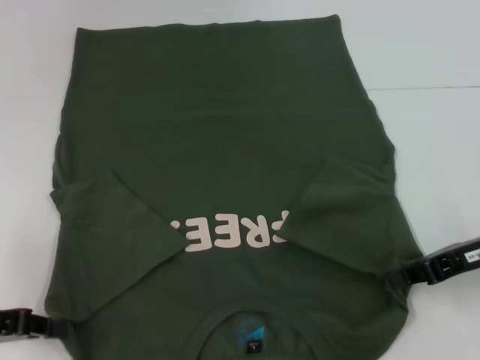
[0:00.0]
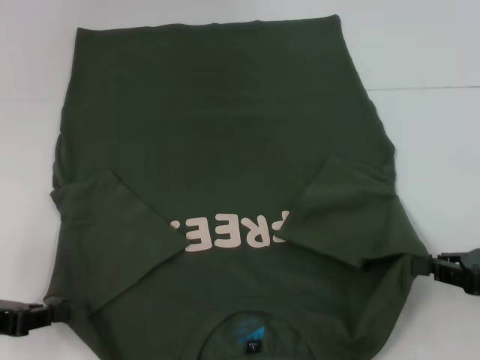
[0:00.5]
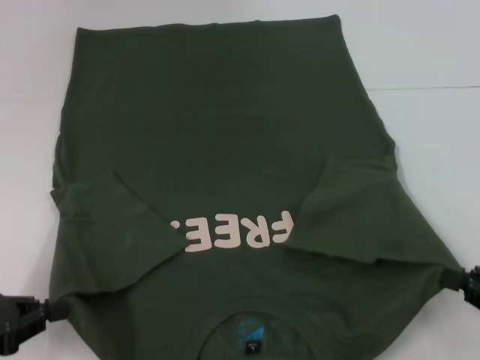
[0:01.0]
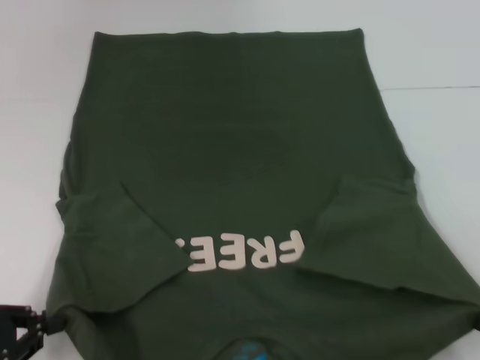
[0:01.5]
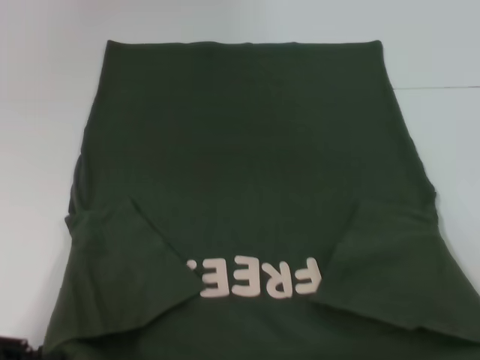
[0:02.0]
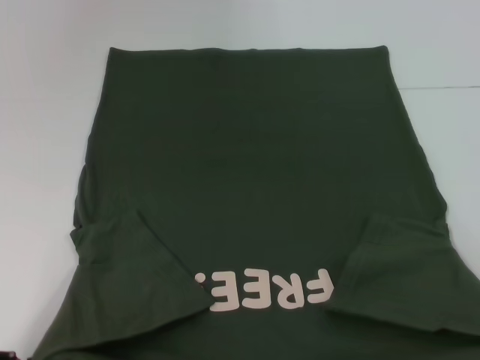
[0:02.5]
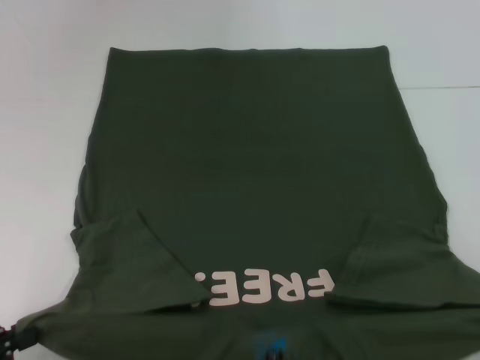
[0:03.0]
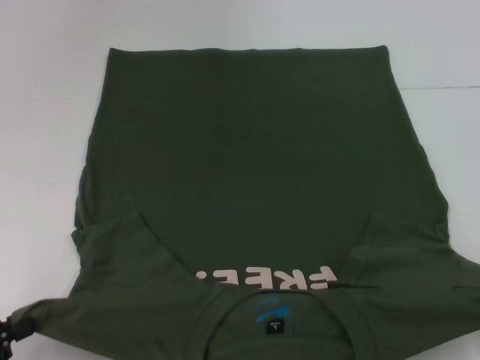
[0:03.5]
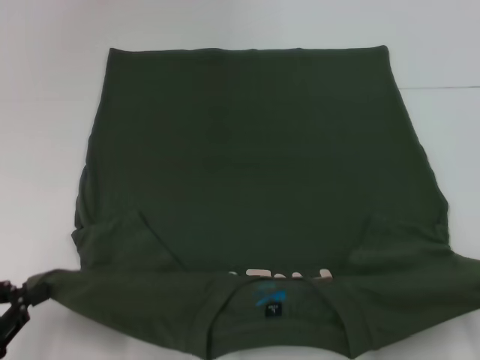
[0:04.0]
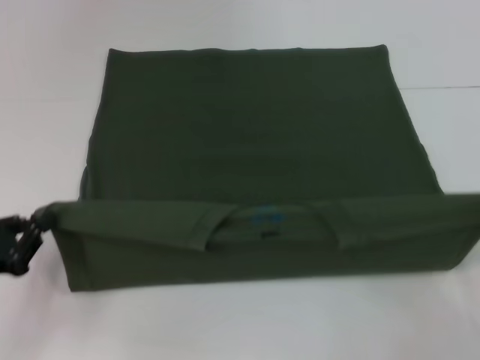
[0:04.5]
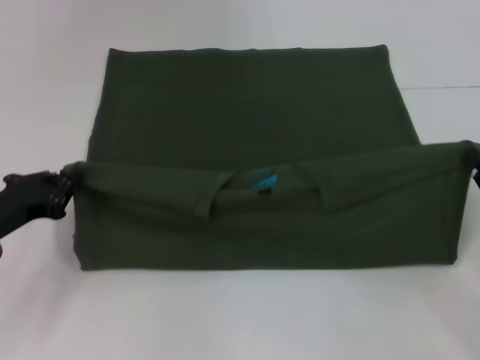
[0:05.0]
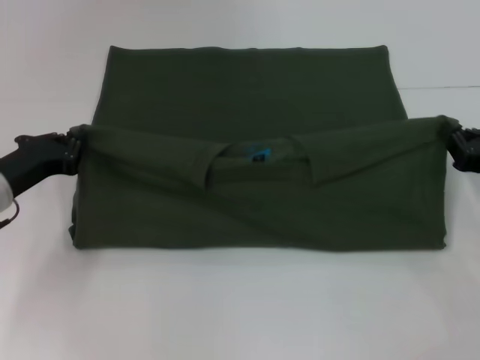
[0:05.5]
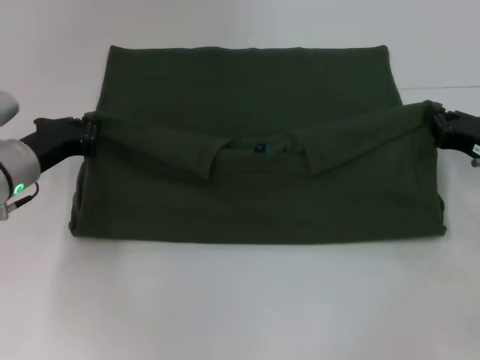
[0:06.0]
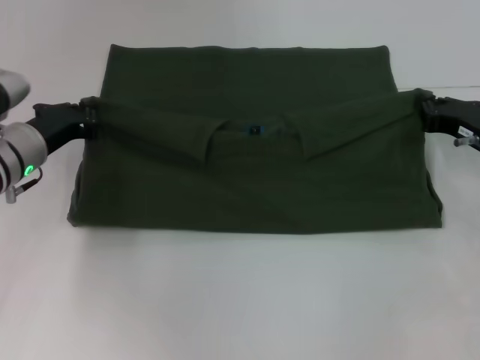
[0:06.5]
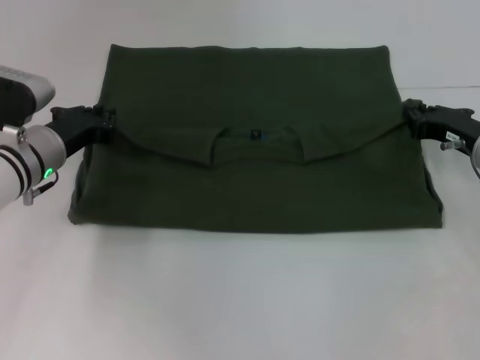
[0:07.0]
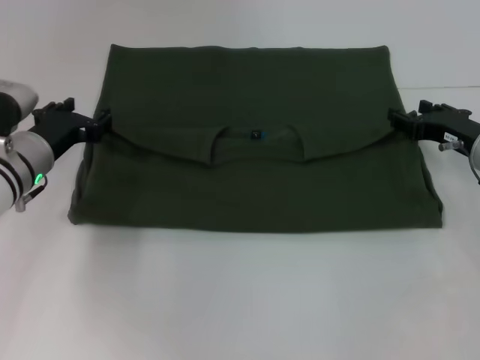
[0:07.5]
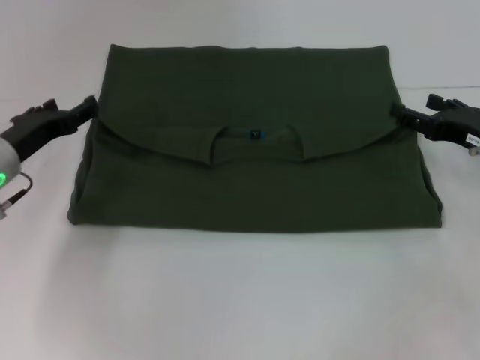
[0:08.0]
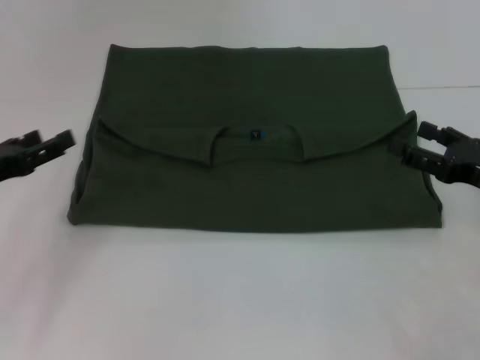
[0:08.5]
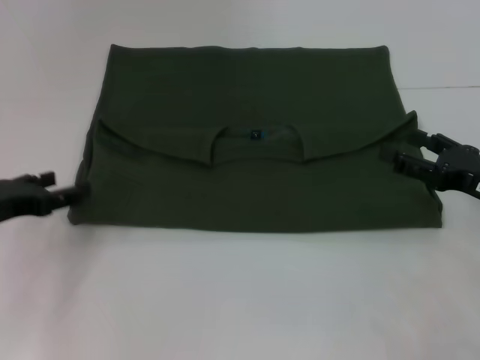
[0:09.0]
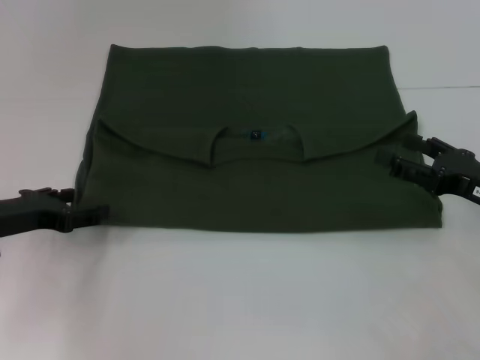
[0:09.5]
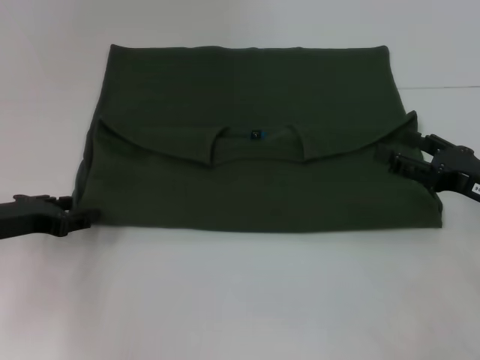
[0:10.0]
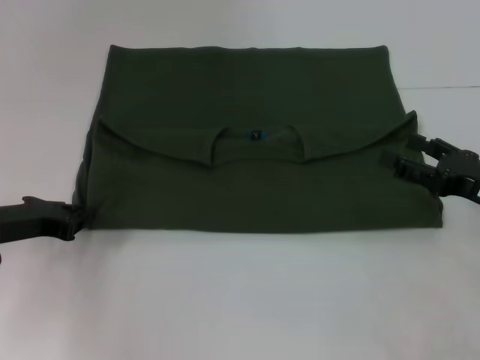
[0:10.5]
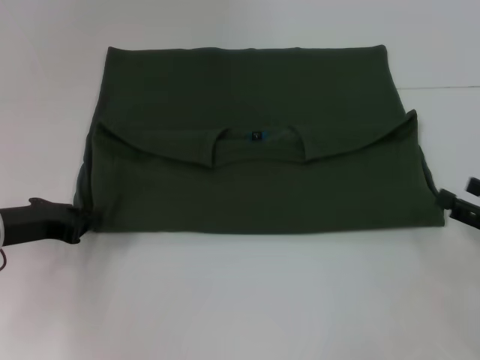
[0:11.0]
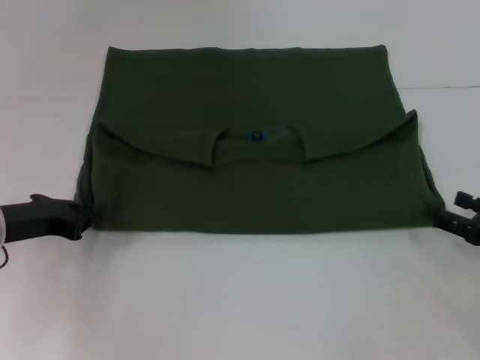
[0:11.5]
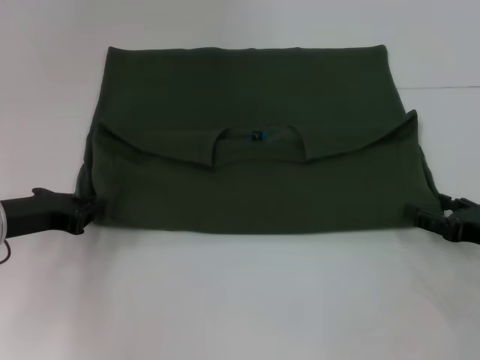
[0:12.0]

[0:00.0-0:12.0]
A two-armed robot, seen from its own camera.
Step, 0:00.0 to 0:07.5: Fold the clothes with your left hand.
Step, 0:00.0 to 0:07.5: Fold the clothes with your right hand.
0:00.0 to 0:02.0: The left gripper heads backward, covering some 10 cm, while the right gripper is displaced backward by some 25 cm.
0:02.0 to 0:04.0: The grippers stay close to where they were, moving slightly.
0:04.0 to 0:06.0: The right gripper shifts approximately 25 cm forward. The left gripper is displaced forward and to the right by approximately 25 cm.
0:06.0 to 0:08.0: The left gripper opens up; the right gripper opens up.
0:08.0 to 0:10.0: The right gripper shifts roughly 5 cm backward.
0:10.0 to 0:12.0: The right gripper moves about 5 cm. Meanwhile the left gripper closes its fingers.

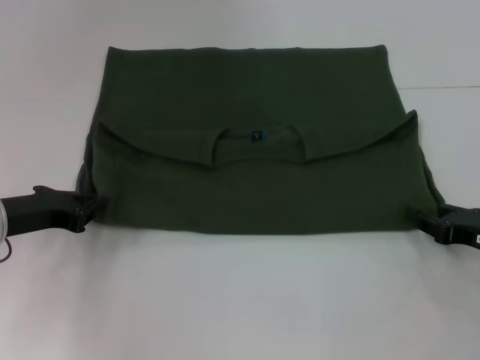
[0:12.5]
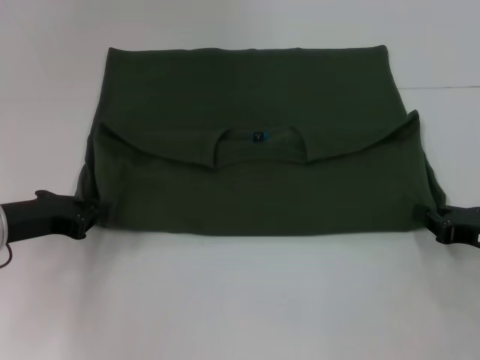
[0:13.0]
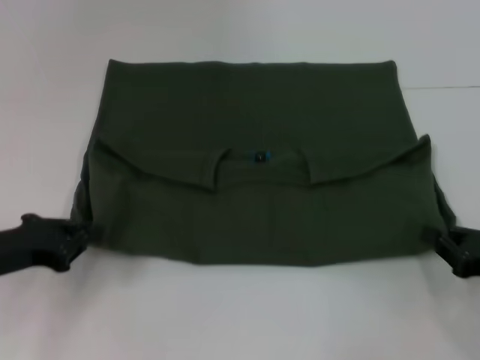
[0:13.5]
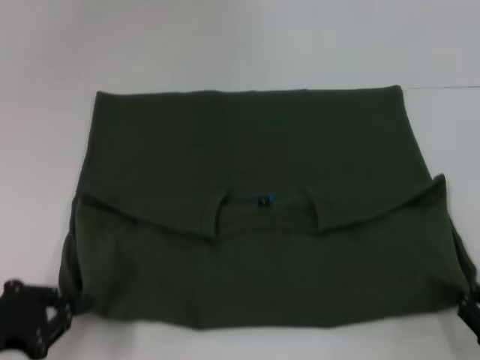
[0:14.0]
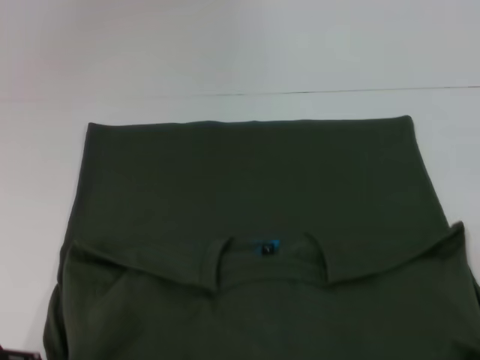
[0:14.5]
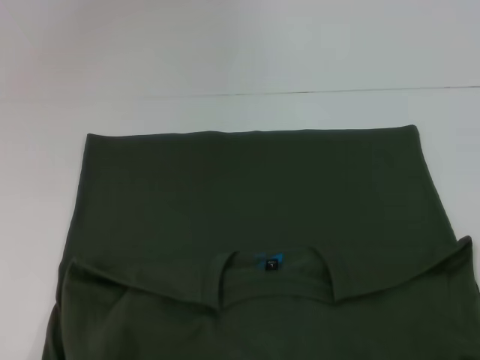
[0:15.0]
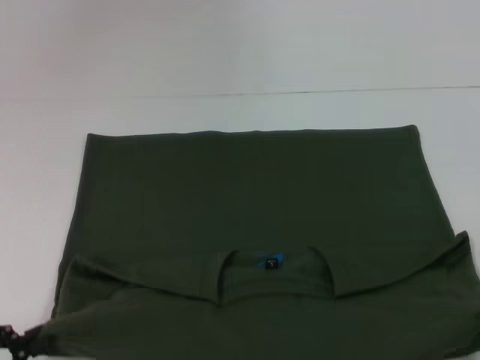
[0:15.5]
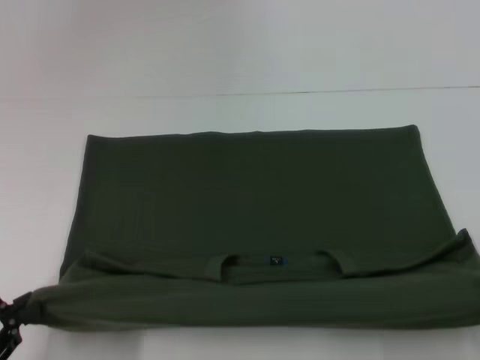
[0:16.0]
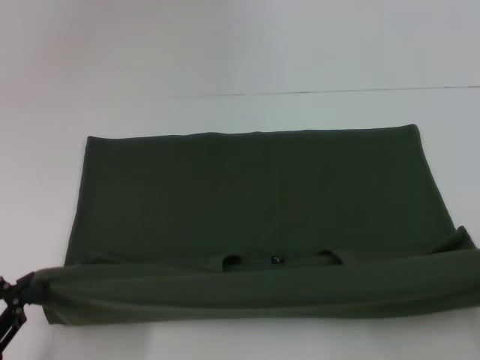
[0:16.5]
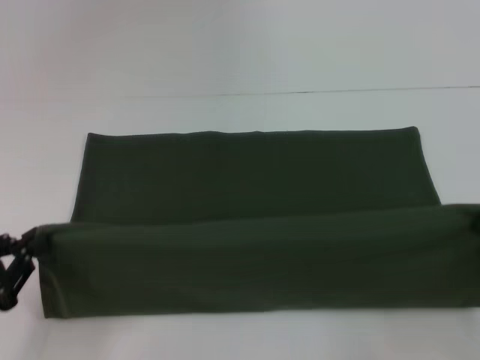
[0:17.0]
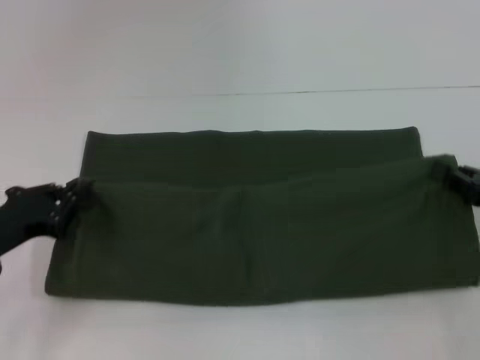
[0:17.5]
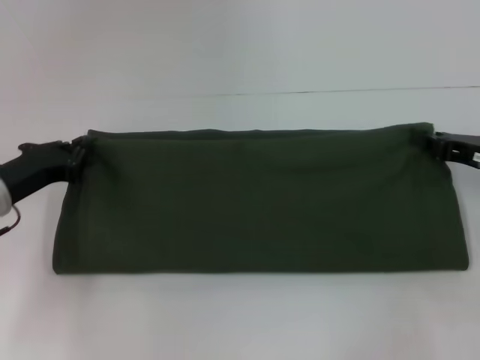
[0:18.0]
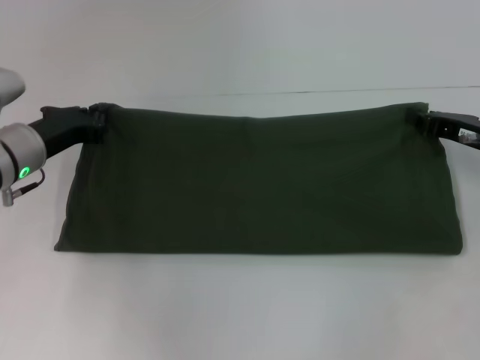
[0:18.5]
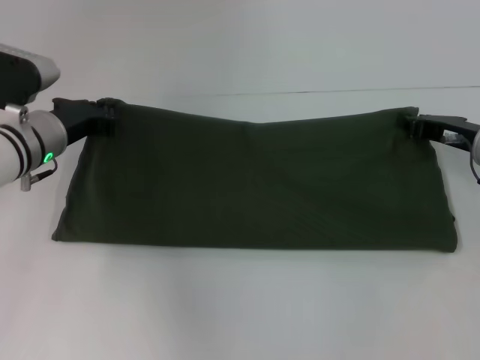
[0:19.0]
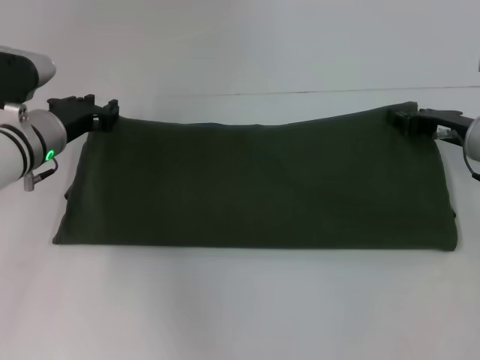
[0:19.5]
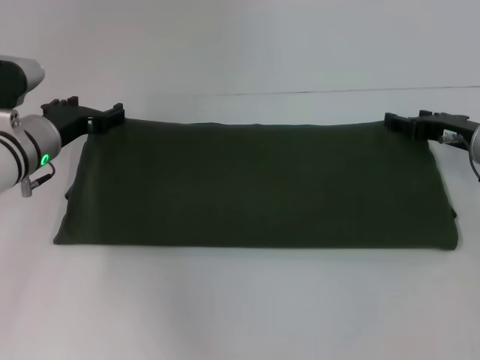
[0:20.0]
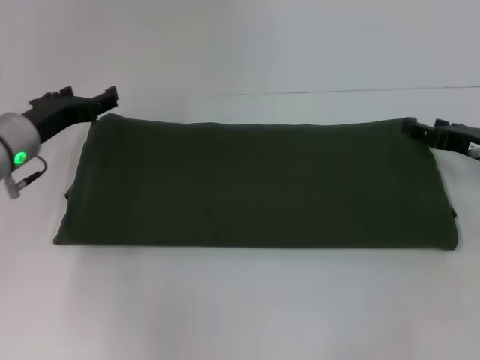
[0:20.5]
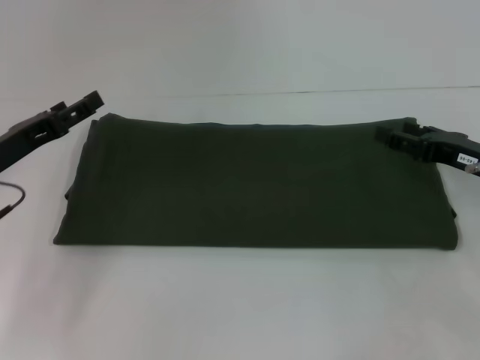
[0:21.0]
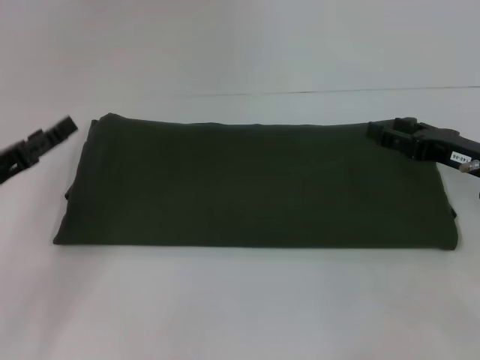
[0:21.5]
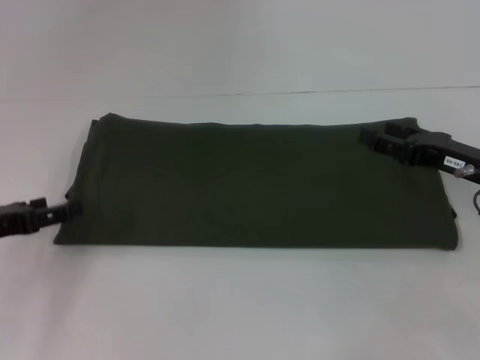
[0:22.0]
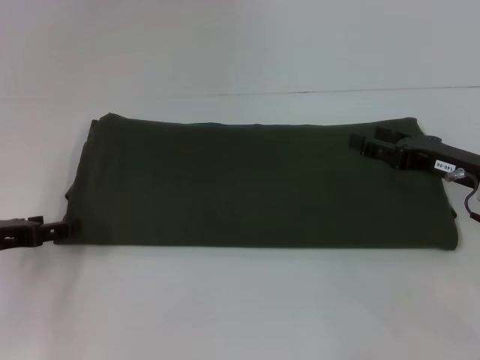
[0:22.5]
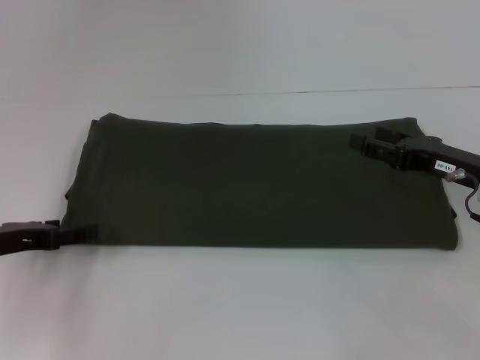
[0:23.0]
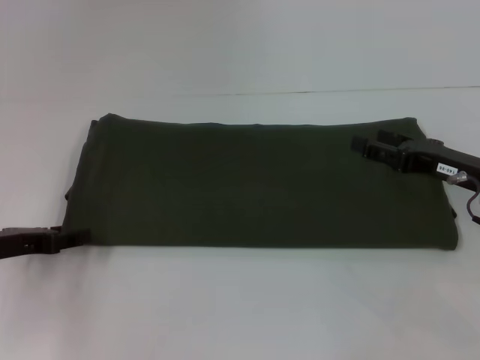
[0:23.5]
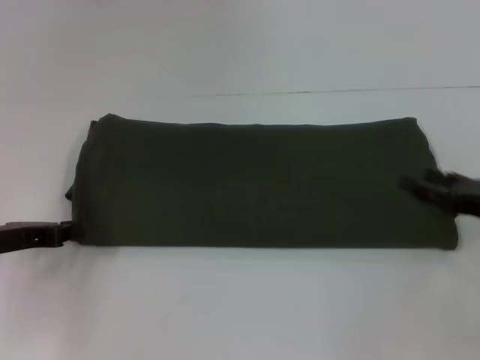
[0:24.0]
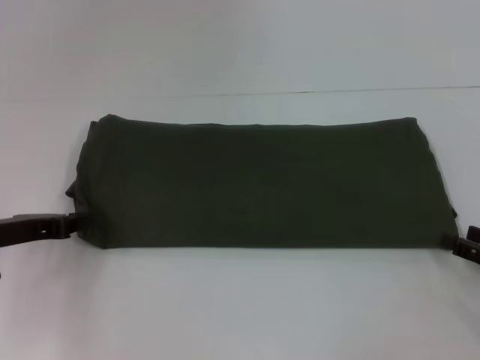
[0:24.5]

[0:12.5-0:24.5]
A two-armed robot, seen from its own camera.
Step, 0:12.5 to 0:15.0: Pull the clothes with your left hand.
Step, 0:12.5 to 0:15.0: Pull the clothes with your right hand.
Step, 0:15.5 to 0:19.5: Fold the clothes with your right hand.
0:12.5 to 0:14.5: Both grippers move backward, about 20 cm. The right gripper closes up.
0:14.5 to 0:16.5: The right gripper is displaced upward by roughly 5 cm.
0:16.5 to 0:18.5: The grippers both shift forward by approximately 25 cm.
0:18.5 to 0:20.5: The right gripper opens up, while the left gripper opens up.
0:20.5 to 0:22.5: The left gripper travels backward and to the left by roughly 15 cm.
0:22.5 to 0:24.5: The right gripper shifts about 15 cm backward and to the right, while the left gripper closes its fingers.

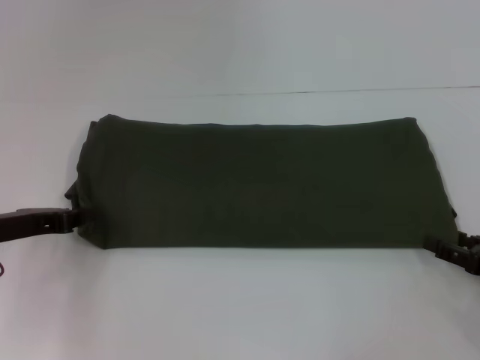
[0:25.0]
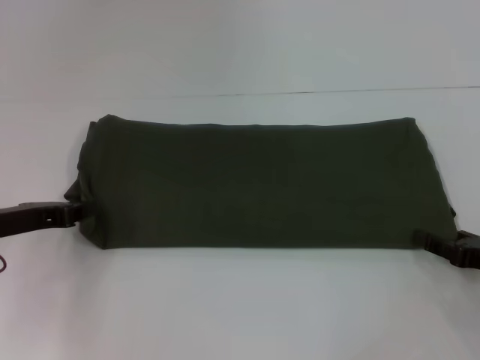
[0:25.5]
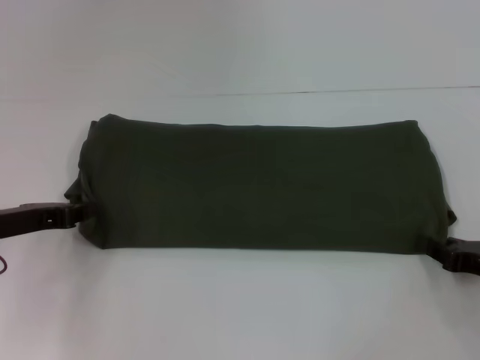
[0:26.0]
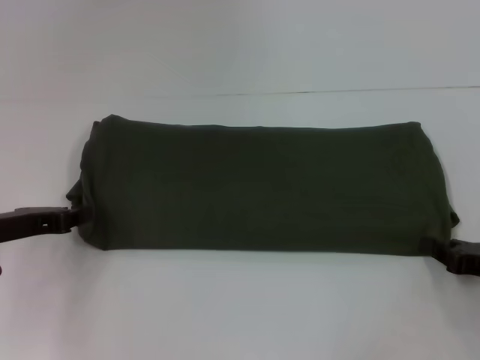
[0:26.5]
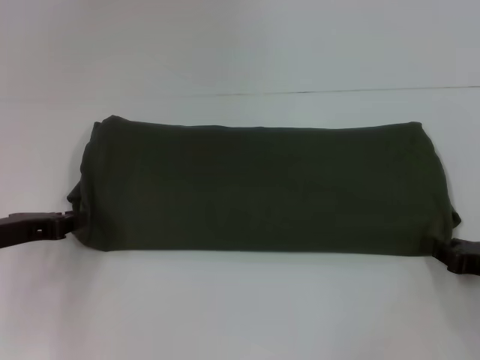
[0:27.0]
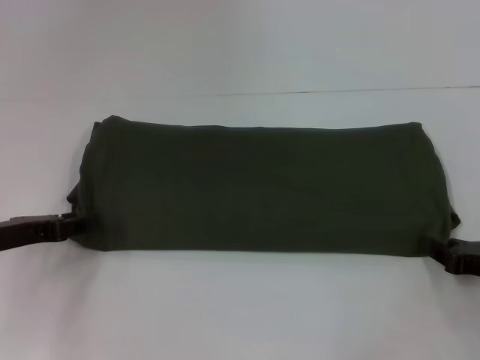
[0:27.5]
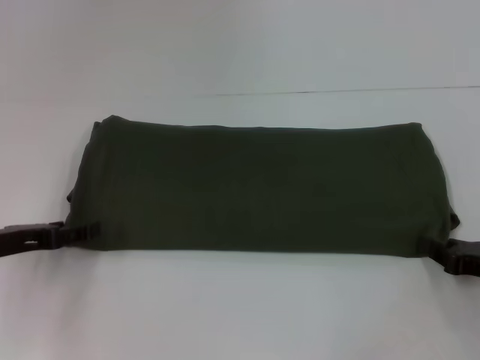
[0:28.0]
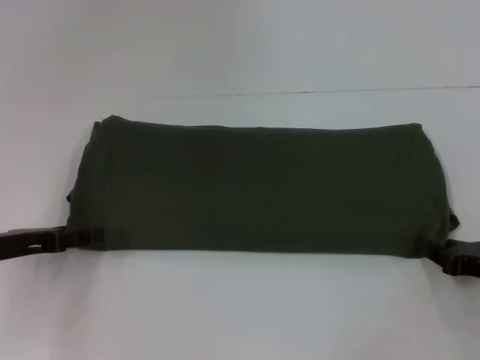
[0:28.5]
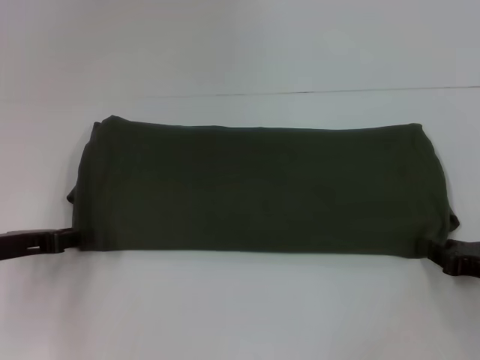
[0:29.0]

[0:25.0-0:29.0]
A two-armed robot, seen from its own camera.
0:25.0 to 0:27.0: The right gripper closes up.
0:27.0 to 0:29.0: The left gripper opens its fingers.
